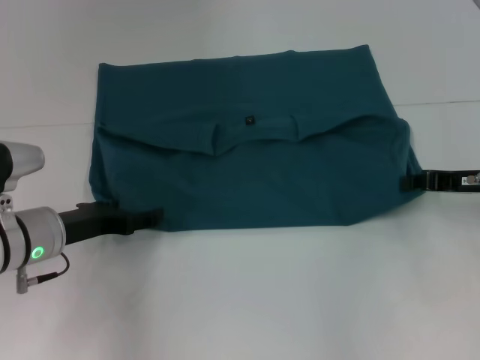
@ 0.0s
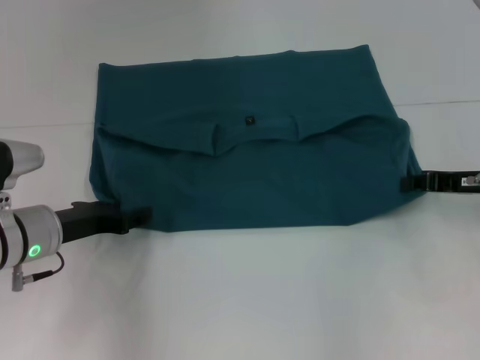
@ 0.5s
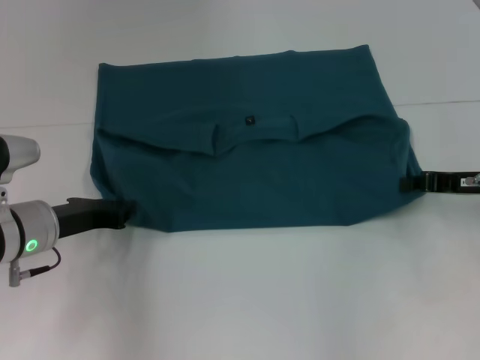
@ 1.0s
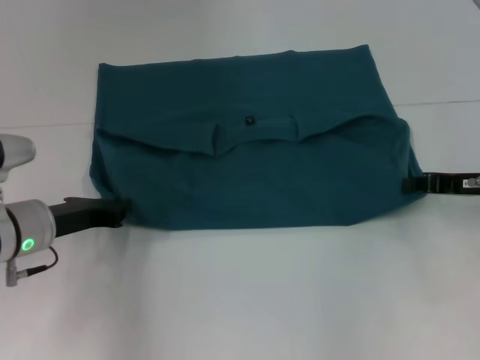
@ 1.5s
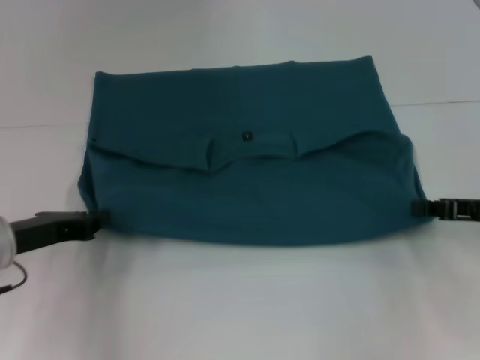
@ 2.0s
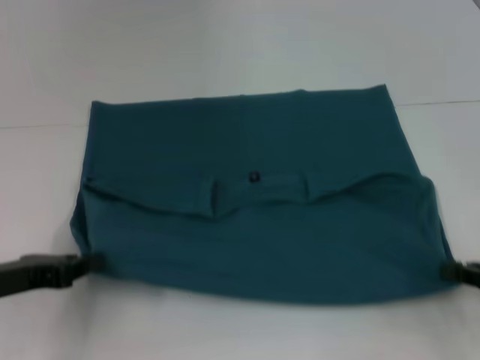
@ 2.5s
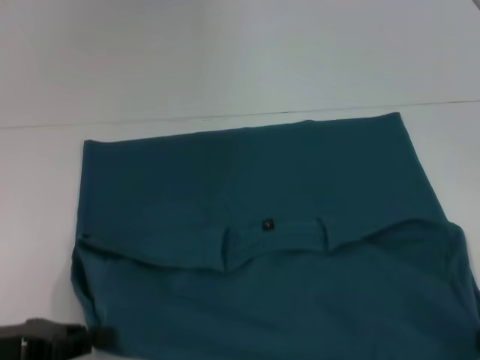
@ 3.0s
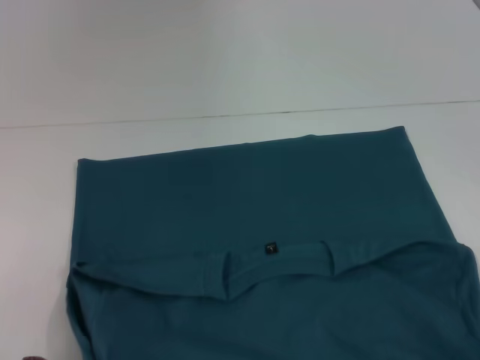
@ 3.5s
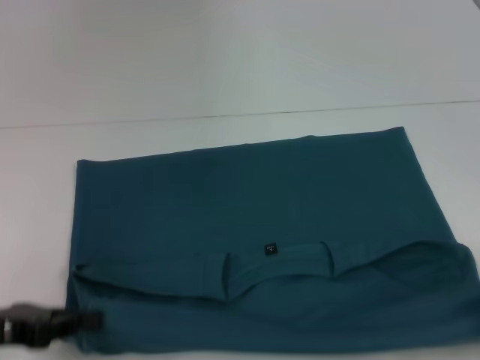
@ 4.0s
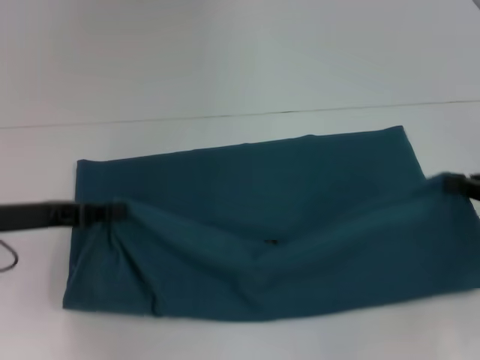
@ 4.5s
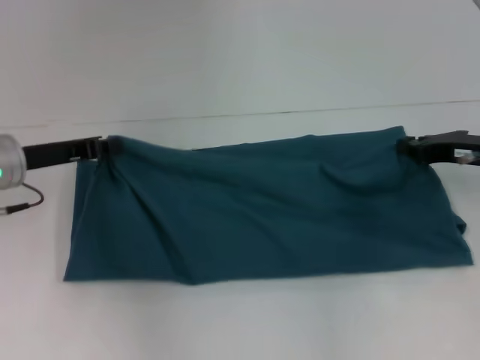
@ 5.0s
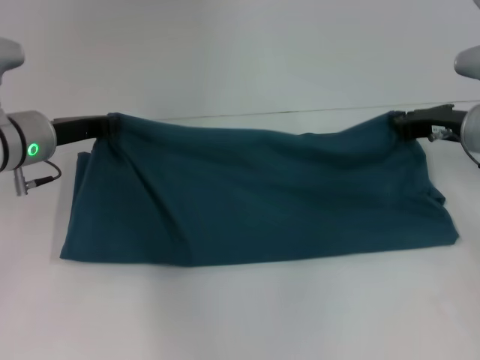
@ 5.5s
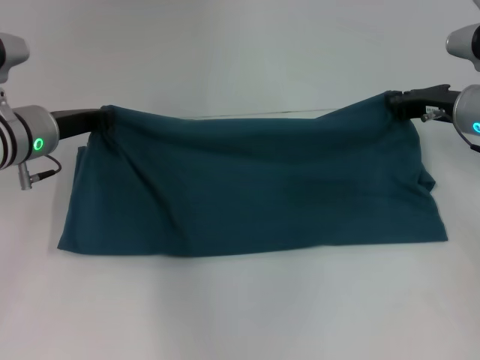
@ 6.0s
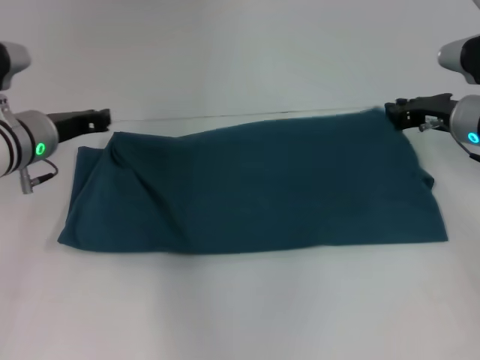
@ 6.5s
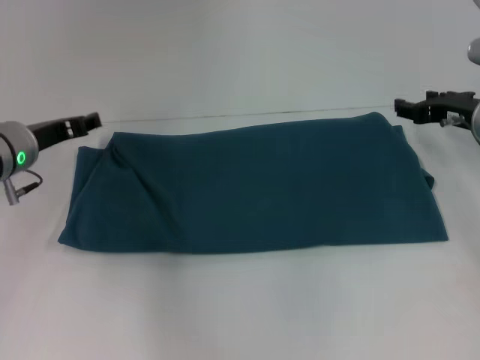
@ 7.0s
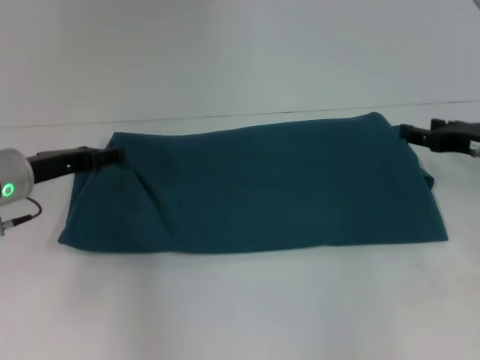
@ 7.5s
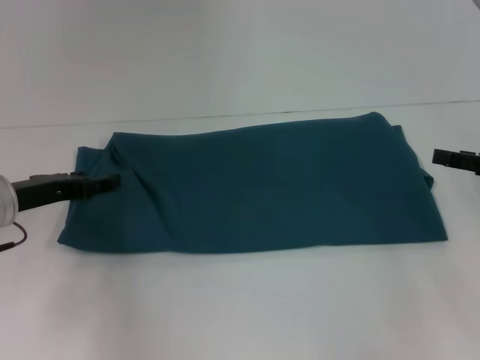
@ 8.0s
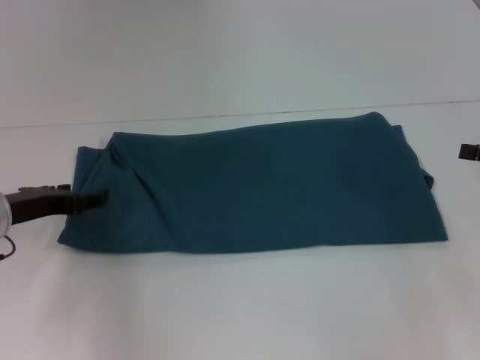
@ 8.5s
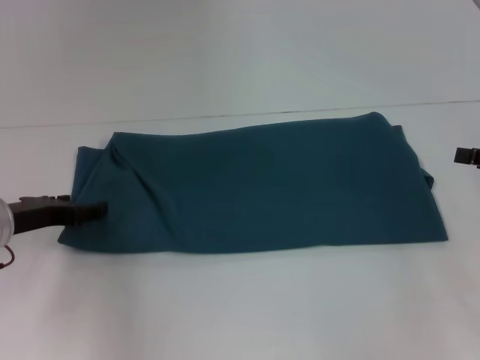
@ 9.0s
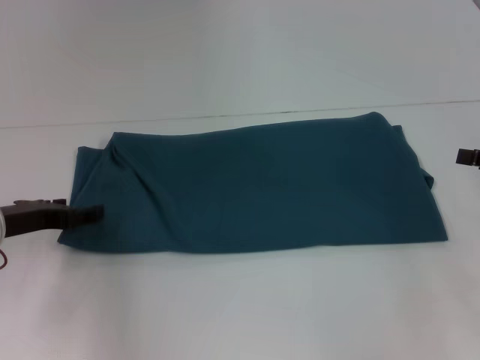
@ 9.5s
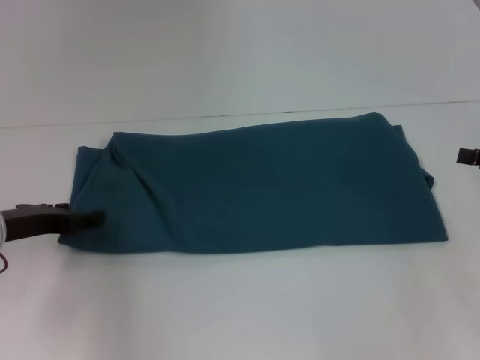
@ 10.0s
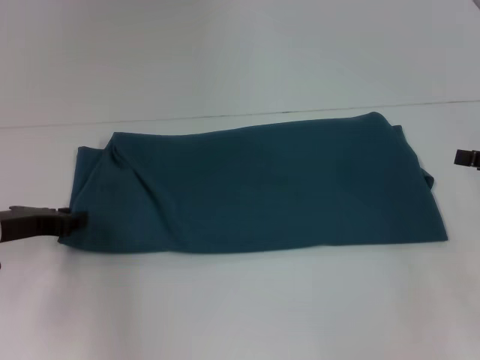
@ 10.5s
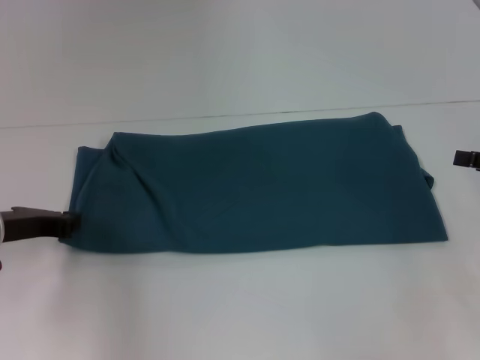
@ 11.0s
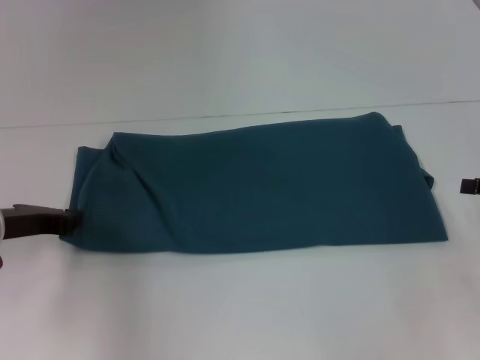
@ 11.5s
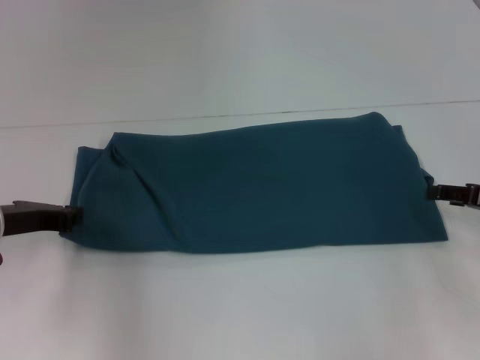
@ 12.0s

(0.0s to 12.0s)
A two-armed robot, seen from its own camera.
Step, 0.0s - 3.0s: Pull the clothes with your left hand.
Step, 0.0s - 3.0s: Pull the clothes with your right hand.
Step, 3.5s - 6.5s: Fold the clothes to the right.
0.0s - 2.0s: The left gripper closes.
2.0s - 4.0s: The right gripper travels backward by some 15 cm; the left gripper travels backward by approximately 10 cm.
4.0s - 6.0s: The right gripper is displaced forward and to the left by about 25 cm, while the left gripper shifts some 20 cm forward and to the right.
6.0s - 8.0s: The left gripper moves backward, roughly 5 cm, and opens. The right gripper moves backward and to the right, approximately 15 cm, and opens its fingers.
8.0s - 10.0s: The grippers stay close to where they were, moving slightly.
10.0s - 12.0s: The left gripper closes. Meanwhile the right gripper changes place by roughly 5 cm.

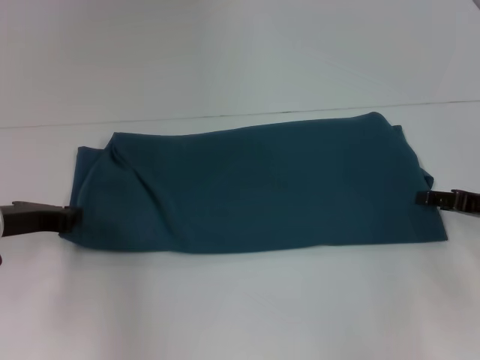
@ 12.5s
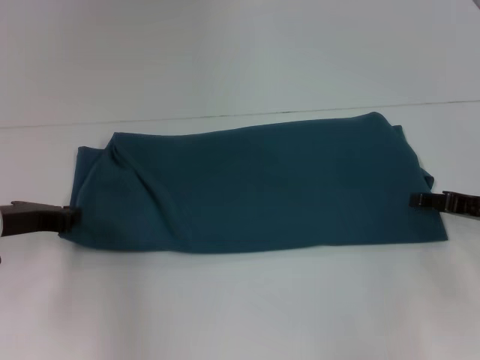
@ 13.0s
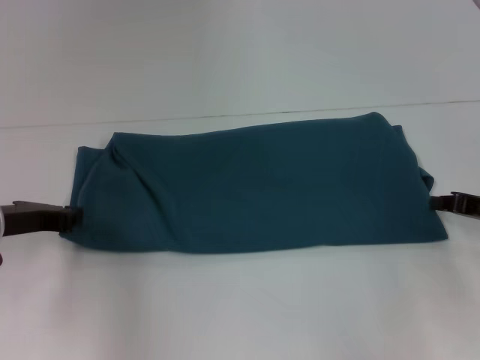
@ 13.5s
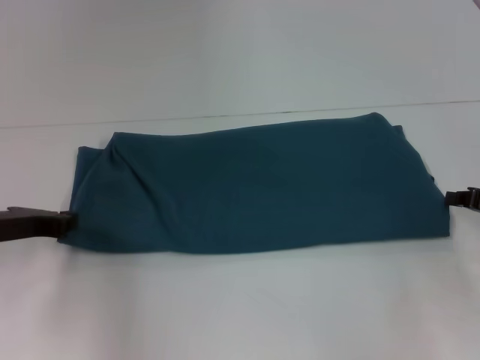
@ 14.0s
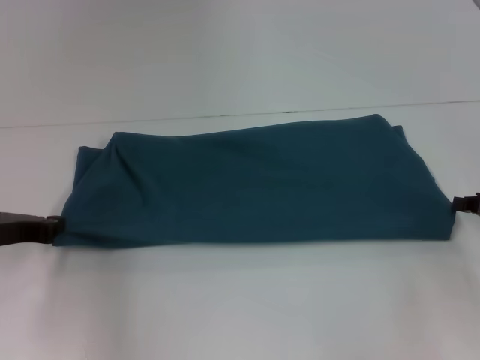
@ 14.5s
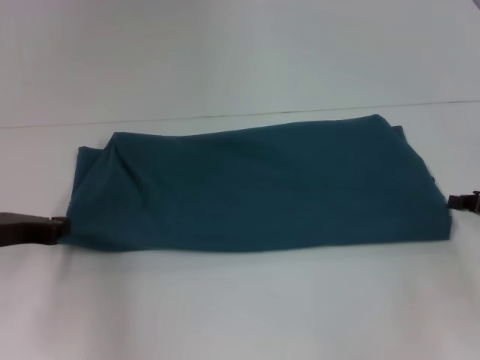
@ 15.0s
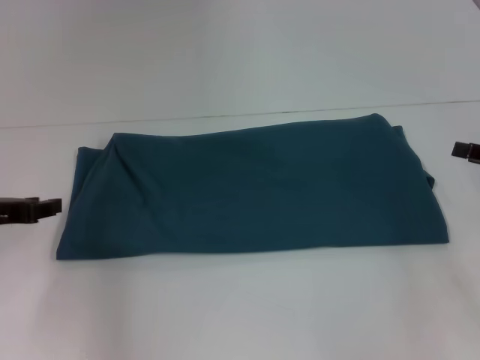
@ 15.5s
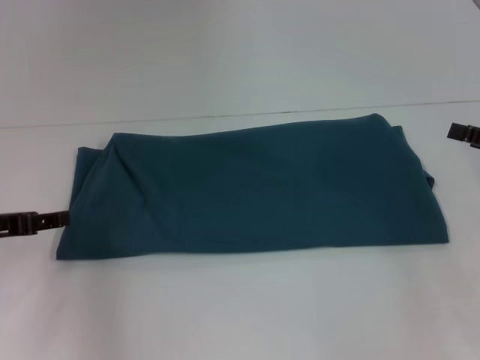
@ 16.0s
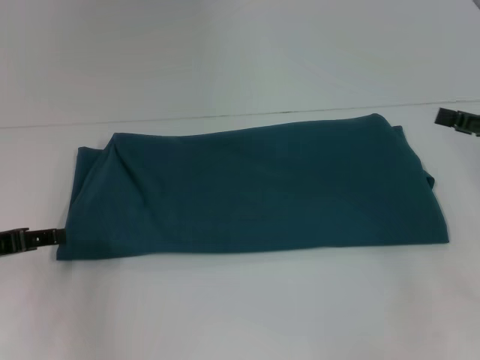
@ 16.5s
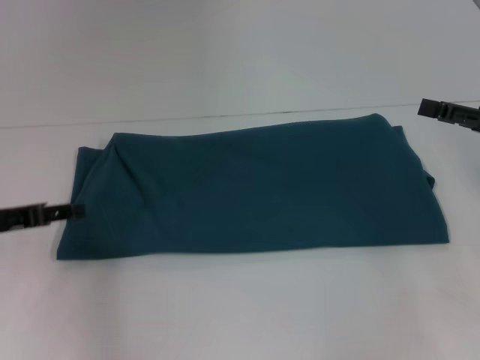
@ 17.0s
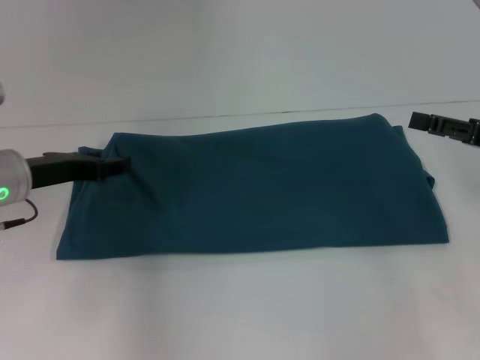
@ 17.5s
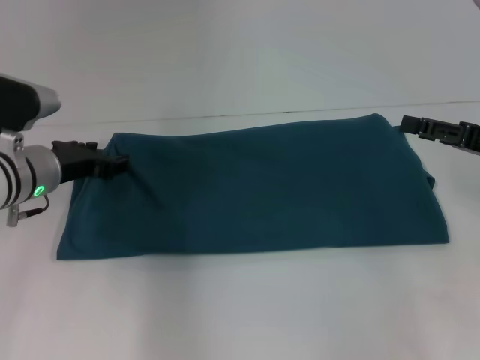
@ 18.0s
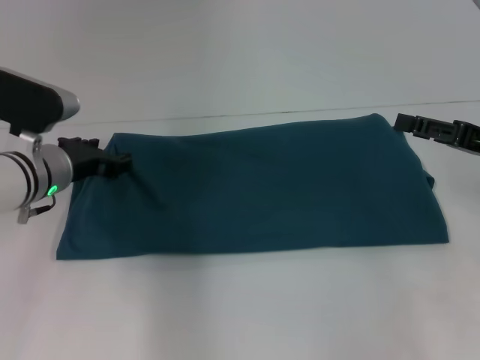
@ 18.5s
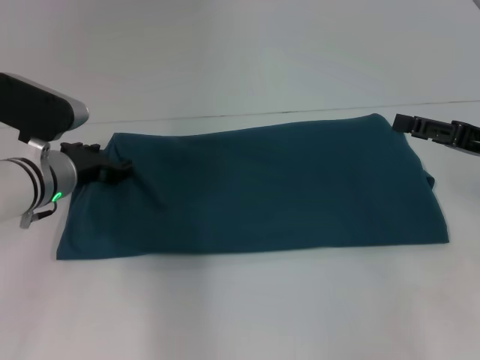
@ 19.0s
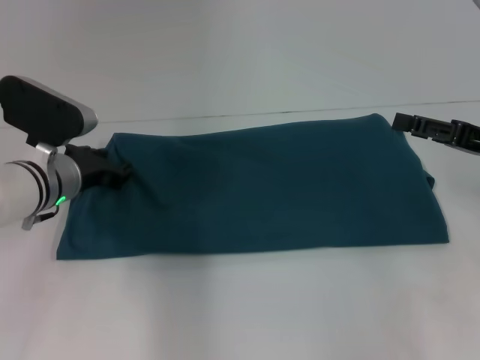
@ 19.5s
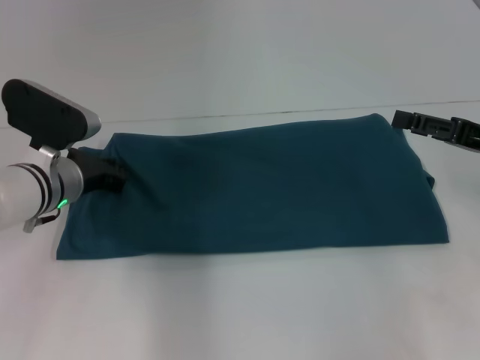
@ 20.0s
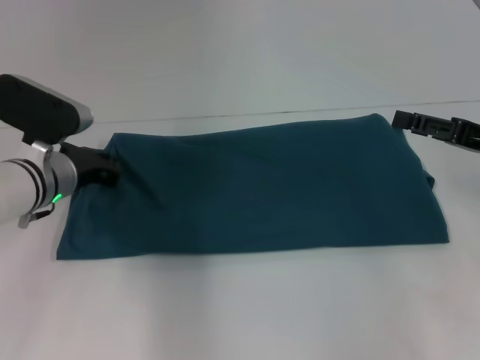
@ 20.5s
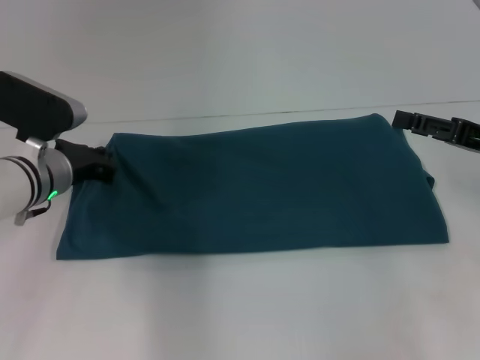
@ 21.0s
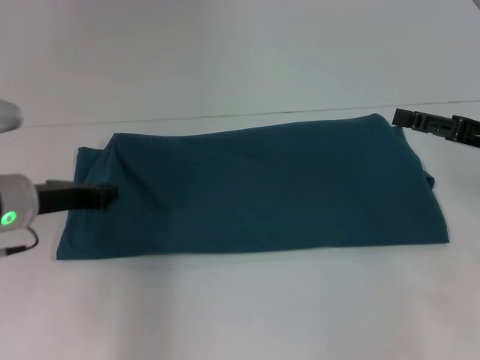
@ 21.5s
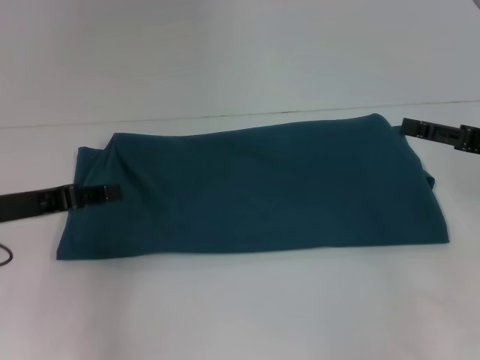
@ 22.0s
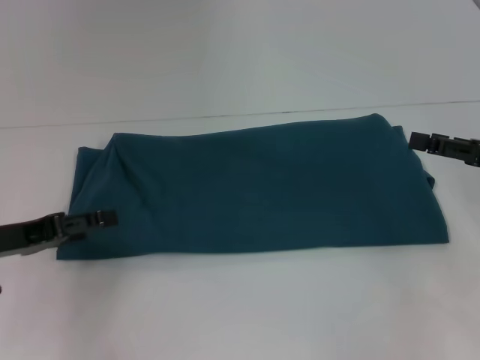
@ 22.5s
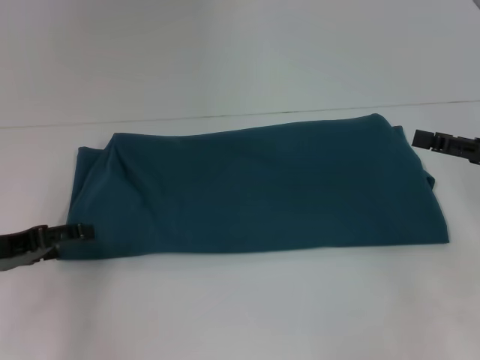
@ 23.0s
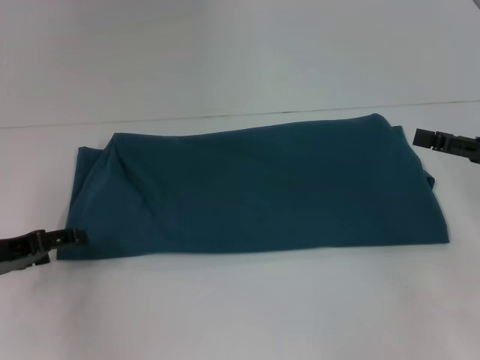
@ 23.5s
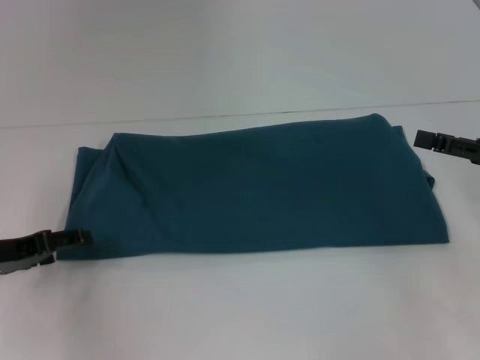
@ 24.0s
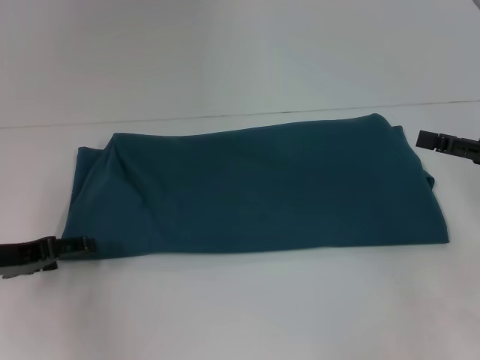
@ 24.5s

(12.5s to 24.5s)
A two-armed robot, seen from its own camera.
12.5s - 14.5s: The right gripper closes its fingers.
14.5s - 16.5s: The right gripper goes roughly 5 cm upward, and opens up; the left gripper opens.
16.5s - 18.5s: The left gripper shifts about 15 cm to the right and forward.
18.5s - 20.5s: The left gripper closes up.
20.5s - 22.5s: The left gripper goes some 15 cm backward and to the left, and opens its fingers.
22.5s - 24.5s: The grippers stay close to where they were, moving slightly.

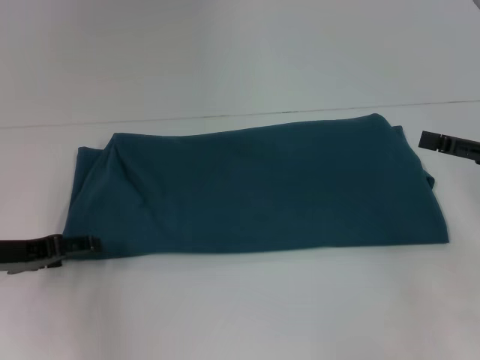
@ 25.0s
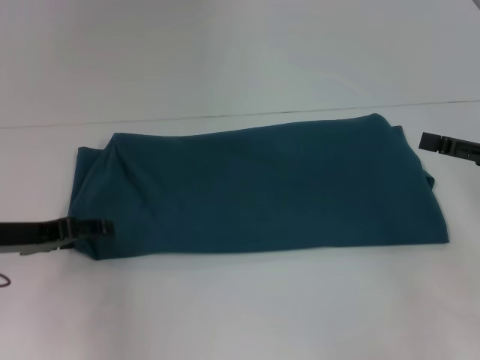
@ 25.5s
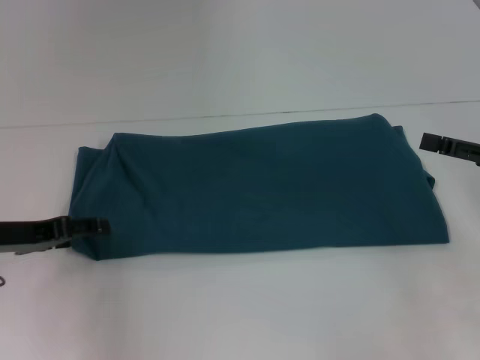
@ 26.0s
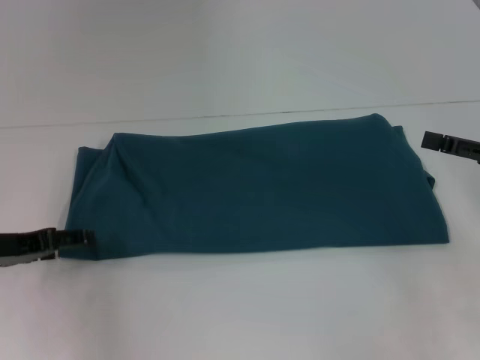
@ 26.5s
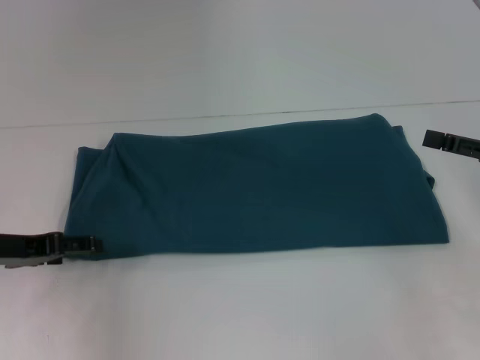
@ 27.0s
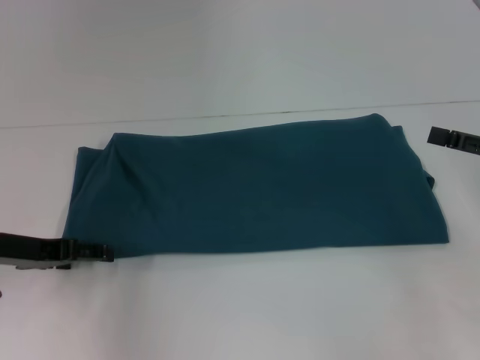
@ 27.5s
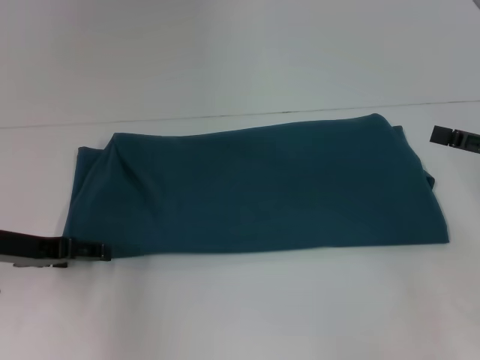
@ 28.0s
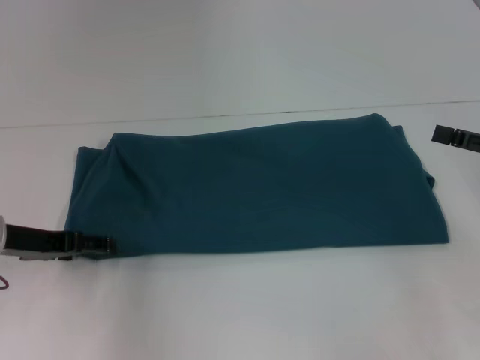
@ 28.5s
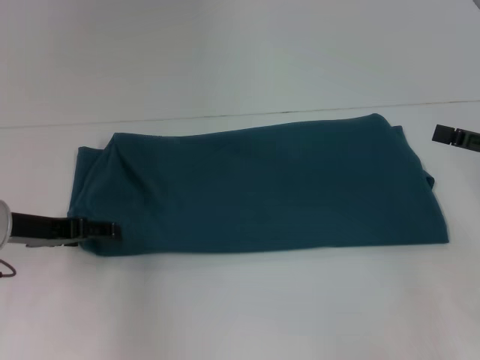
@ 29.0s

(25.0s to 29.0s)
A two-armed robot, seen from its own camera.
25.0s - 29.0s: The grippers stay close to where they were, moving slightly.
